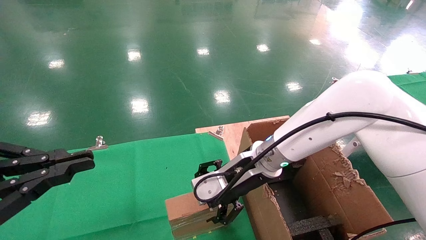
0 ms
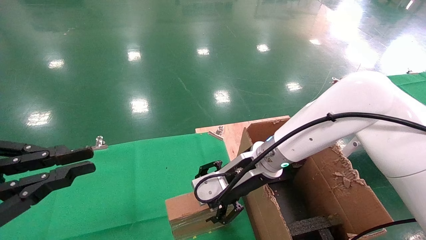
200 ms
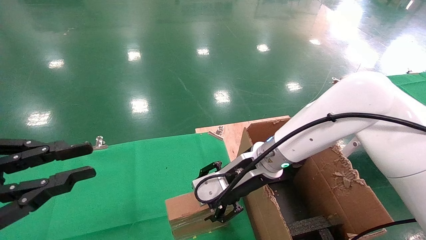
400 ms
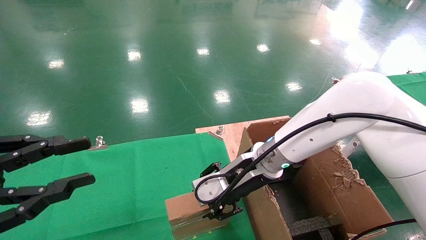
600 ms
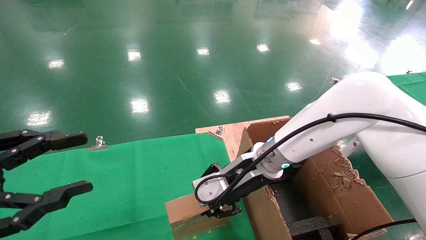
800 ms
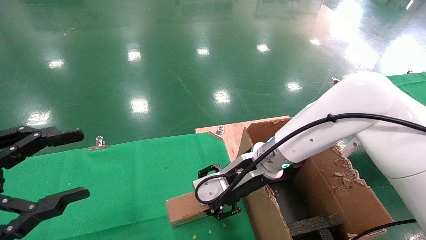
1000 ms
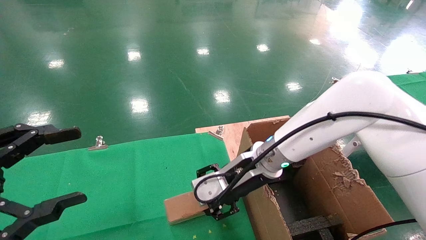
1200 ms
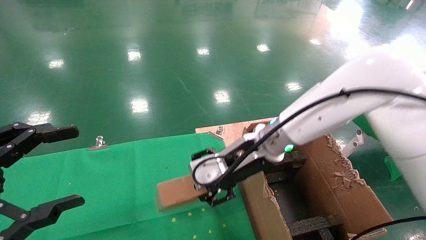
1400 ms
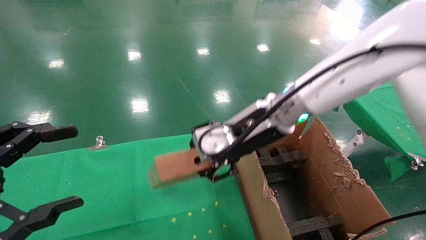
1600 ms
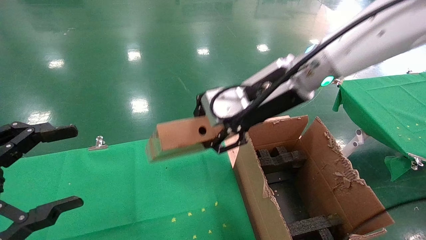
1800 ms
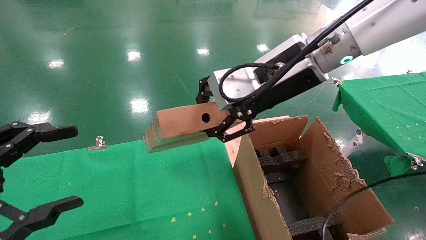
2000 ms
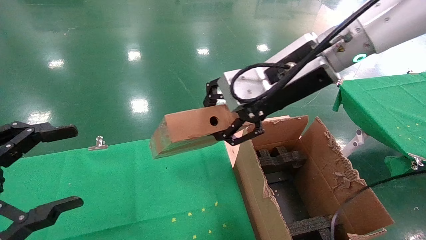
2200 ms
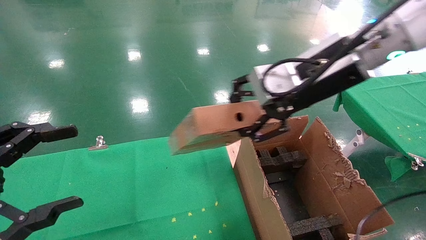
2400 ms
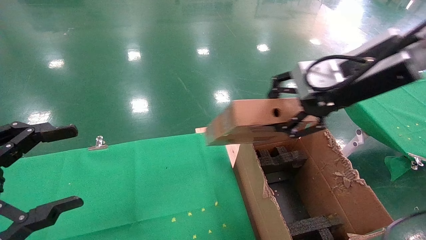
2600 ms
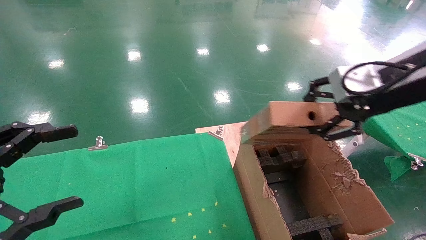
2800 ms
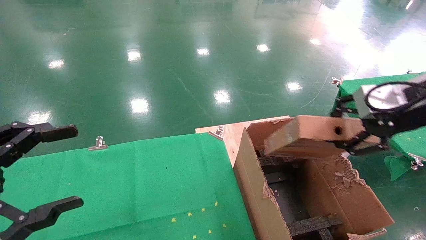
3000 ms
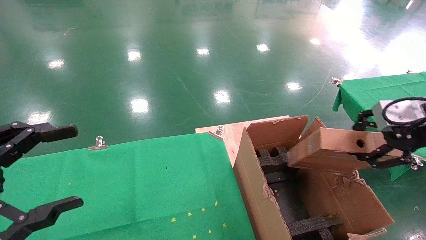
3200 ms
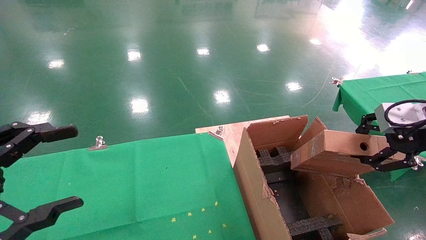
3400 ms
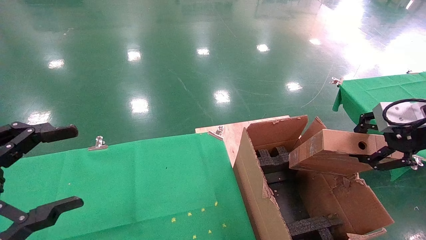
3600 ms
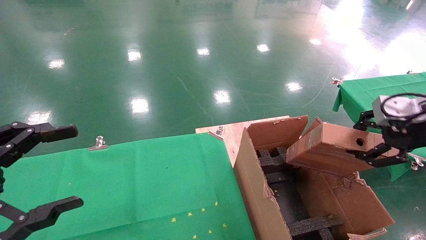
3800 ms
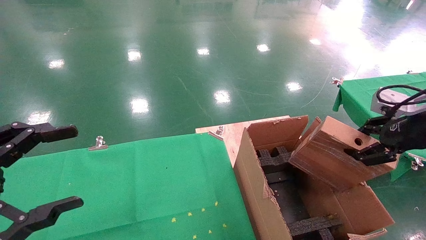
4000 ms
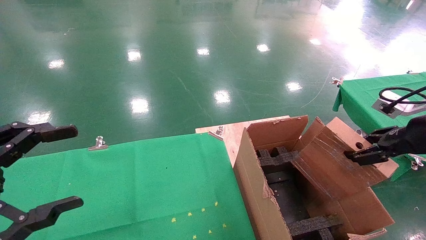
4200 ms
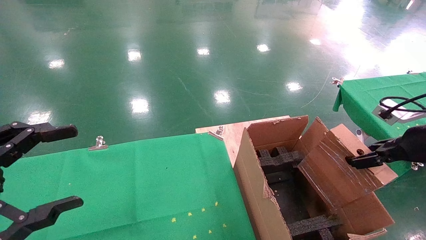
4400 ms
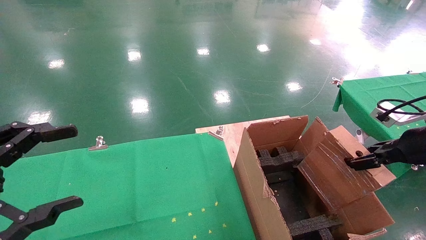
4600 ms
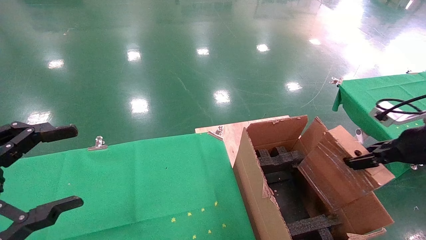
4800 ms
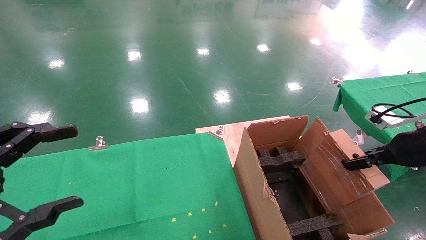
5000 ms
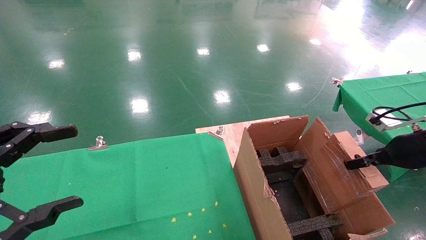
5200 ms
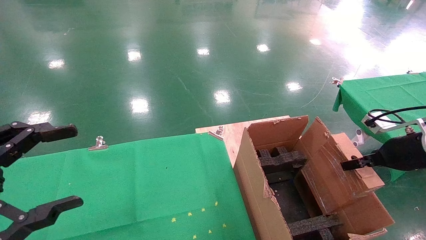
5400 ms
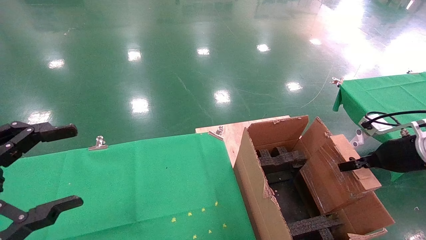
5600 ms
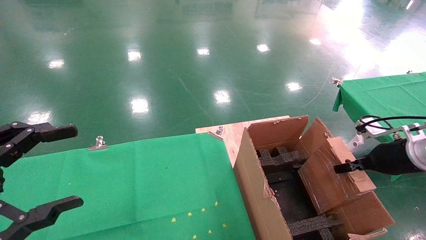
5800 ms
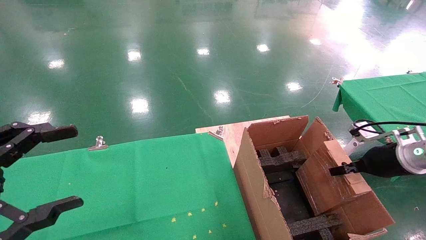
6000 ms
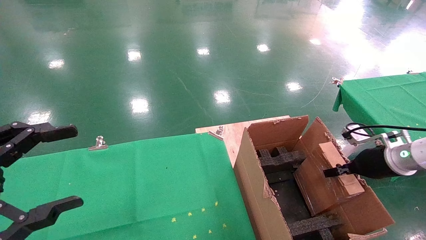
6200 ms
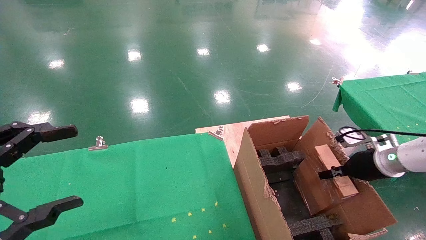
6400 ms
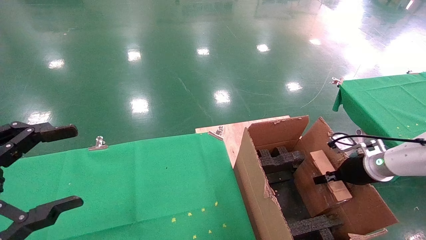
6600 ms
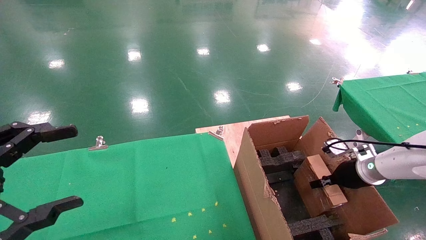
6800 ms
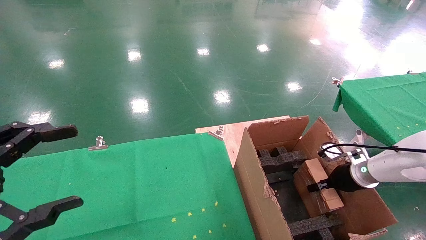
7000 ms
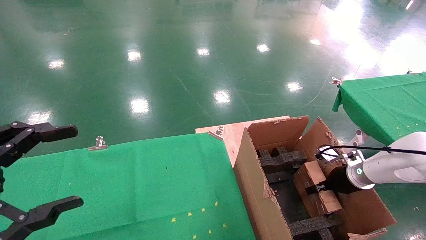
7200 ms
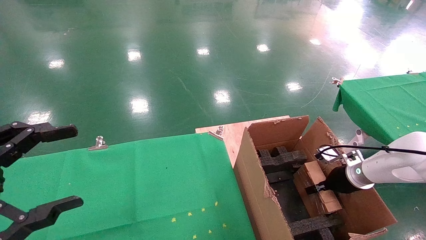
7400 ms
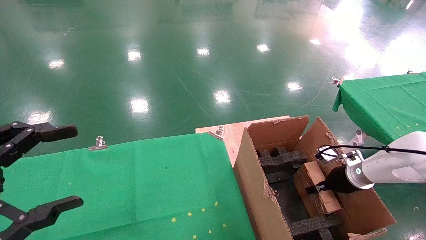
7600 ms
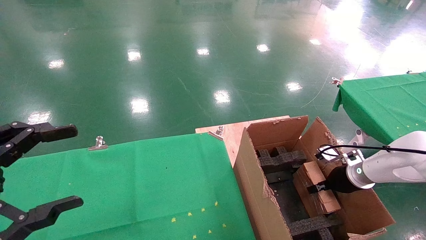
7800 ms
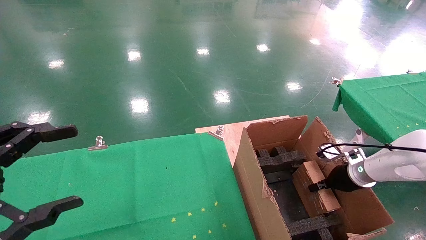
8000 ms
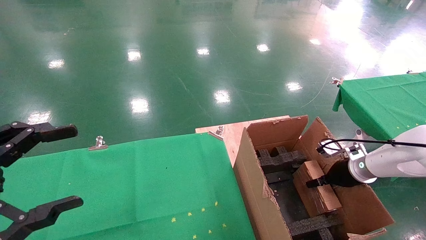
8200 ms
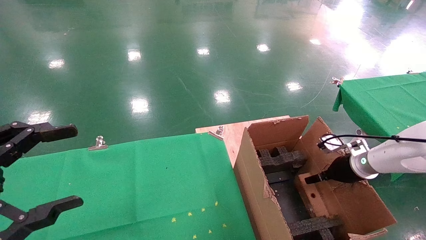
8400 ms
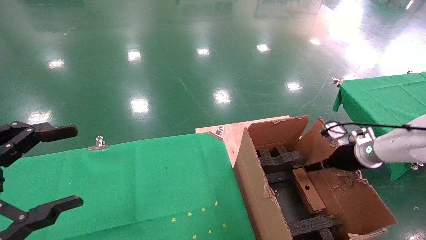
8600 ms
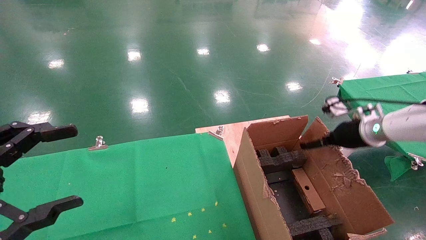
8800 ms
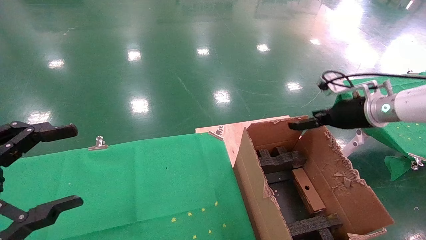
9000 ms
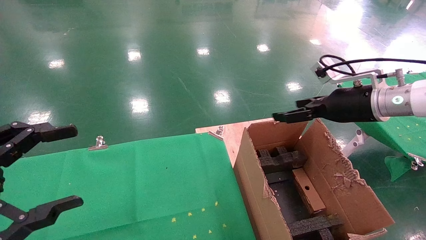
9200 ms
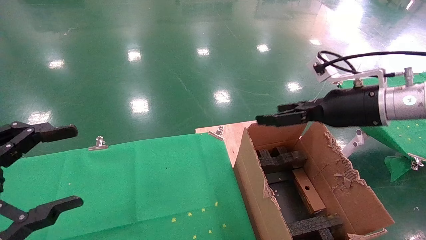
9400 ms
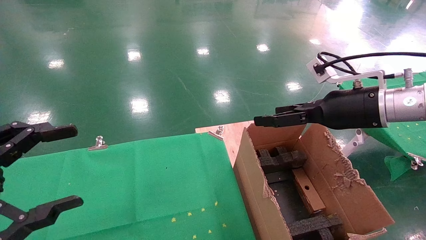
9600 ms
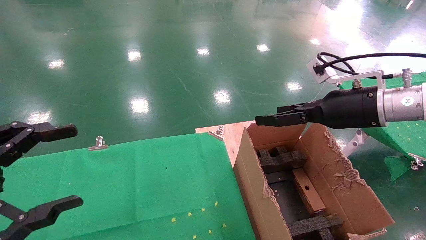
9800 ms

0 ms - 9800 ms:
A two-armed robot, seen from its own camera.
Task of the whole recording: using a robotic arm to pick up a cardboard box and palace it the carton.
Step, 800 ms - 8800 ms: Place the mouse and the power cord paper box into the container.
0 ms - 1400 ms: The right gripper shifts roughly 5 cm upward, and closes up. The left gripper opens.
1400 ms - 2800 ms: The right gripper goes roughly 25 cm to the right, upward and backward.
2800 ms - 4200 ms: The right gripper goes about 15 cm to the right and downward.
4200 ms - 5600 ms: The right gripper goes about 10 cm downward.
5600 ms - 7000 ms: The right gripper is displaced downward and forward by about 15 cm.
7000 ms - 8400 ms: The right gripper opens.
8400 ms - 9800 ms: The right gripper goes roughly 25 cm upward, to the left and backward, and opens its fingers.

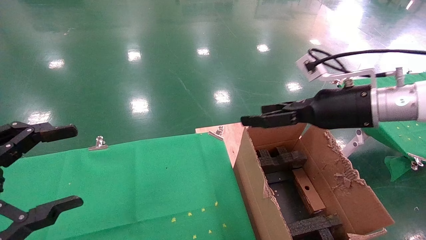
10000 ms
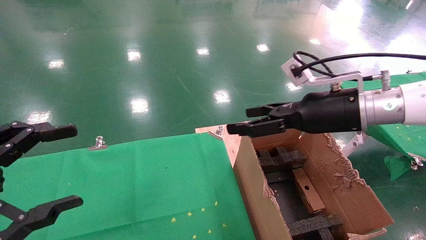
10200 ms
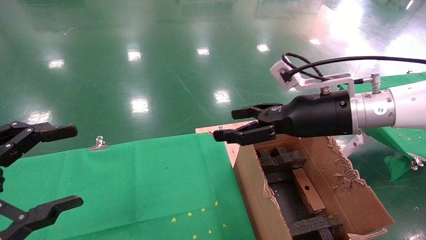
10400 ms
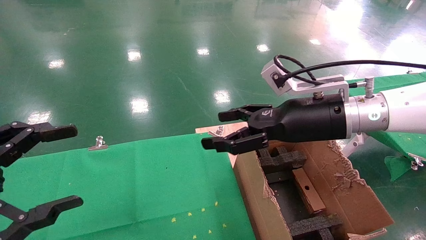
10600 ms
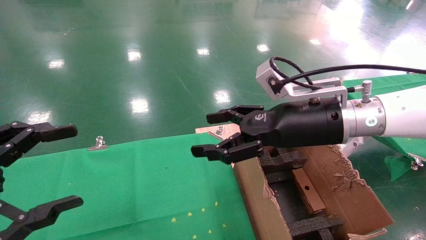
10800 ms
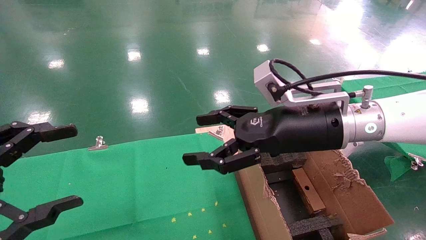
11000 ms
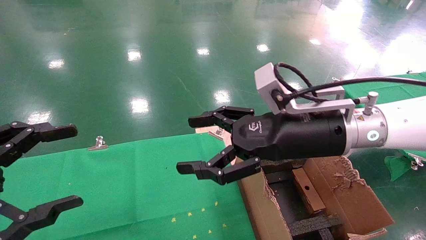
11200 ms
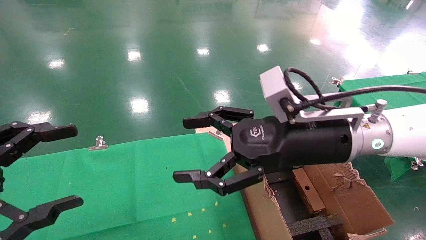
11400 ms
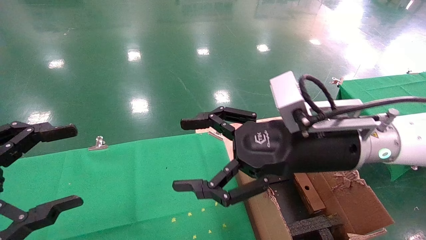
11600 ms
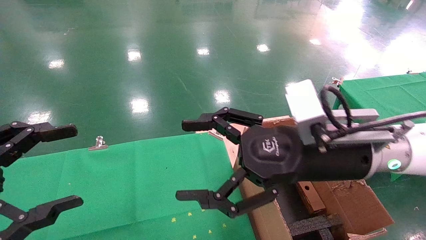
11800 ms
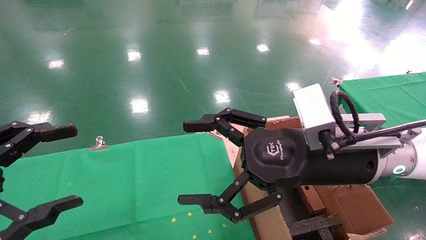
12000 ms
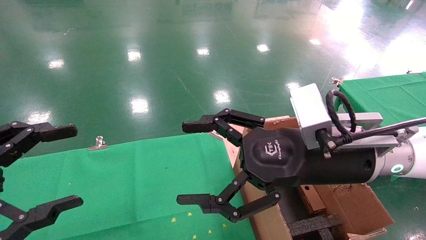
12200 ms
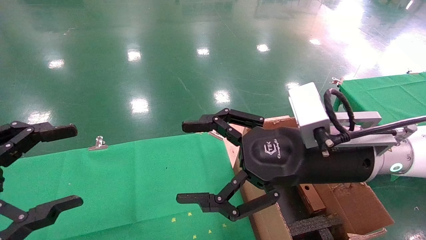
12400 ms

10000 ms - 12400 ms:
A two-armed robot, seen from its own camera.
Task of the whole recording: using a robotic arm to pick up a cardboard box and palace it the carton.
10000 ms - 11200 ms: The right gripper heads to the left, covering roughly 10 cm.
11200 ms - 12400 ms: There are only small adjustments of the grippers.
